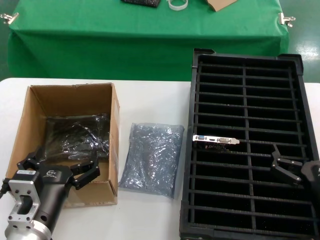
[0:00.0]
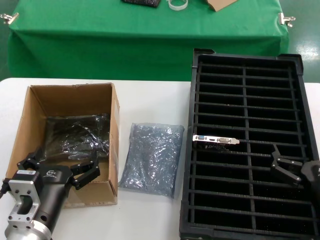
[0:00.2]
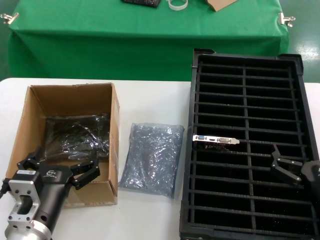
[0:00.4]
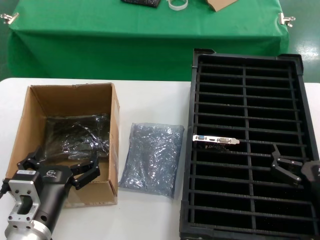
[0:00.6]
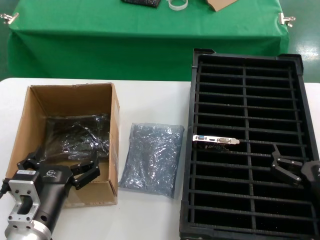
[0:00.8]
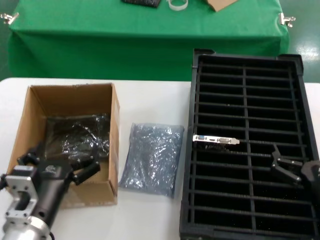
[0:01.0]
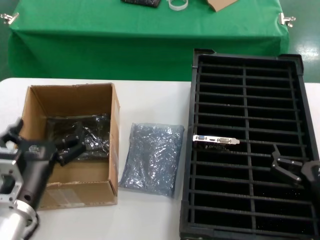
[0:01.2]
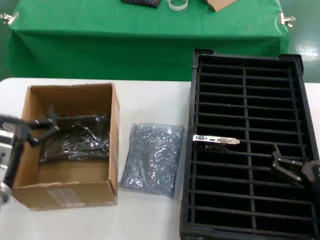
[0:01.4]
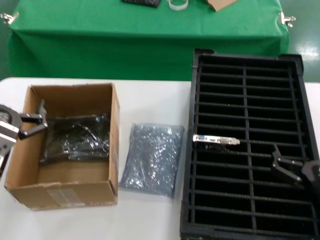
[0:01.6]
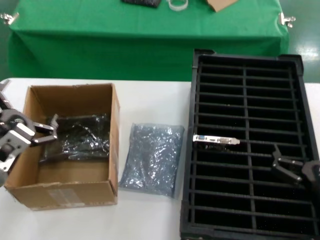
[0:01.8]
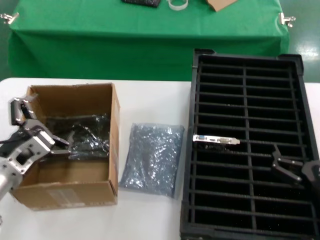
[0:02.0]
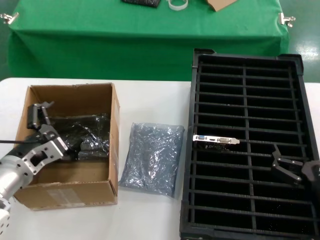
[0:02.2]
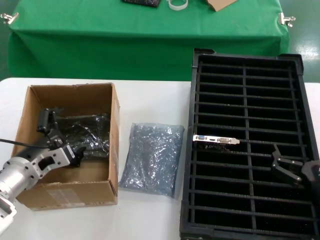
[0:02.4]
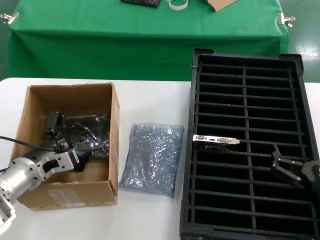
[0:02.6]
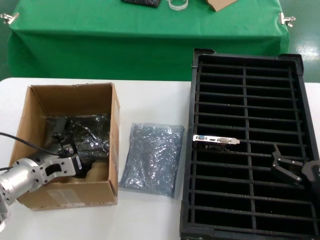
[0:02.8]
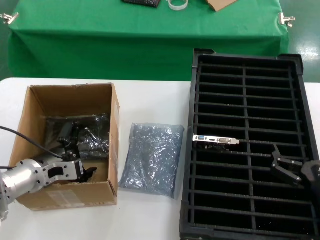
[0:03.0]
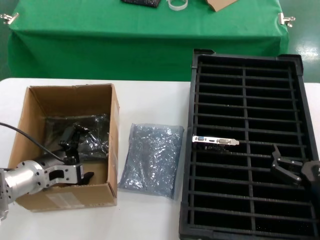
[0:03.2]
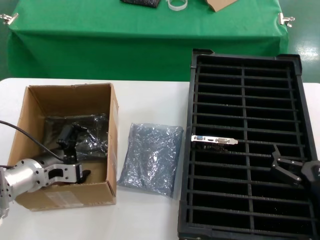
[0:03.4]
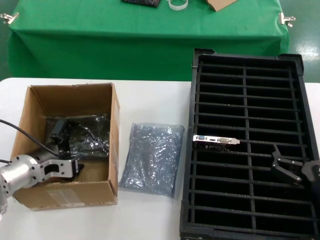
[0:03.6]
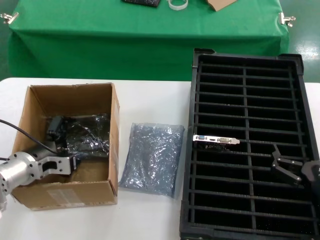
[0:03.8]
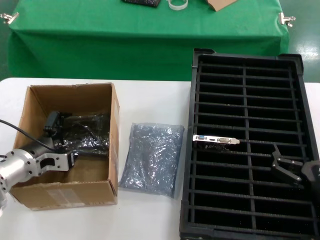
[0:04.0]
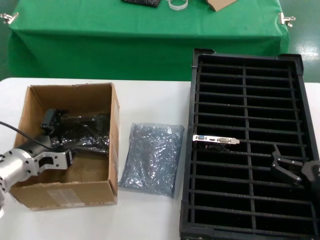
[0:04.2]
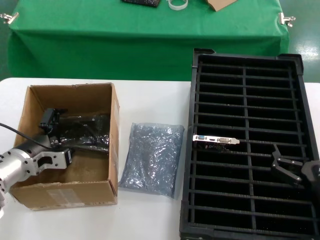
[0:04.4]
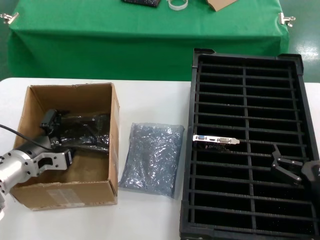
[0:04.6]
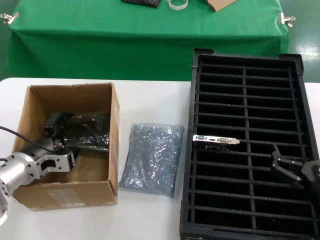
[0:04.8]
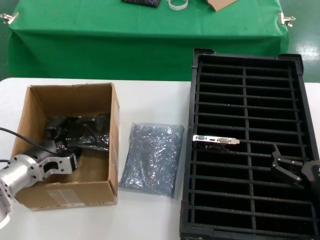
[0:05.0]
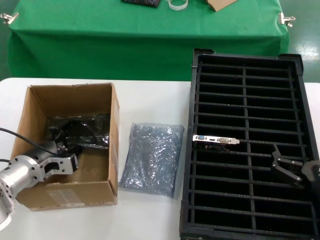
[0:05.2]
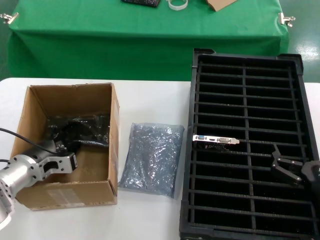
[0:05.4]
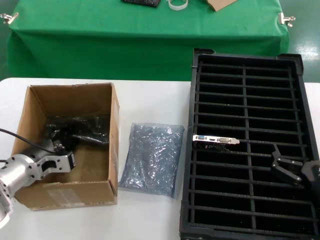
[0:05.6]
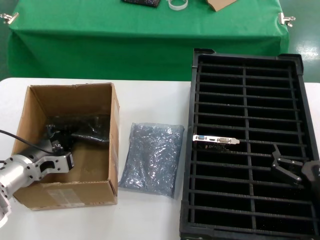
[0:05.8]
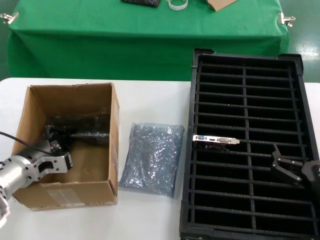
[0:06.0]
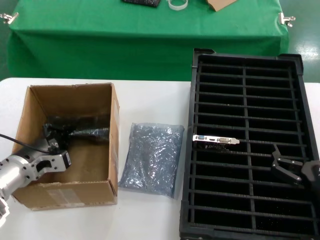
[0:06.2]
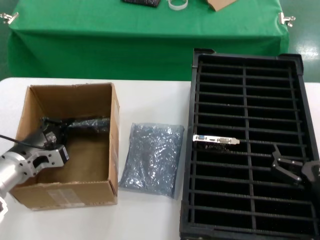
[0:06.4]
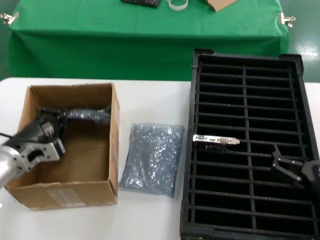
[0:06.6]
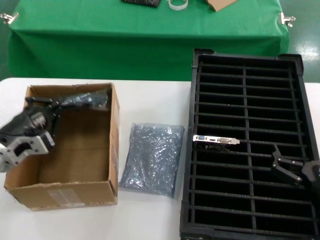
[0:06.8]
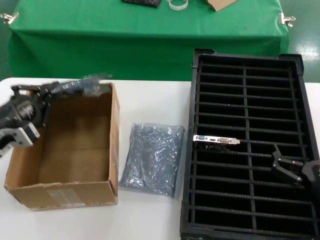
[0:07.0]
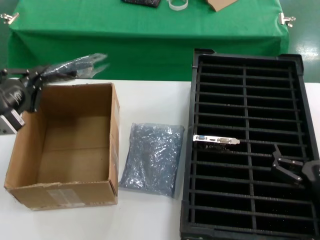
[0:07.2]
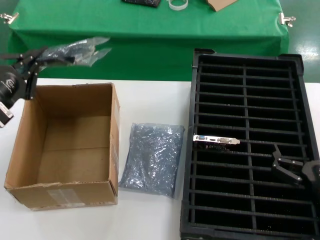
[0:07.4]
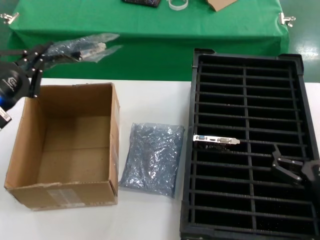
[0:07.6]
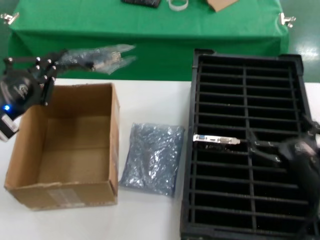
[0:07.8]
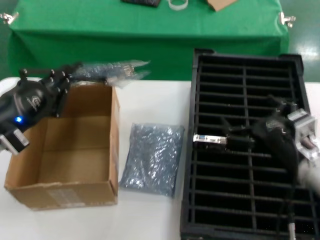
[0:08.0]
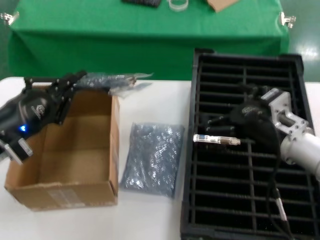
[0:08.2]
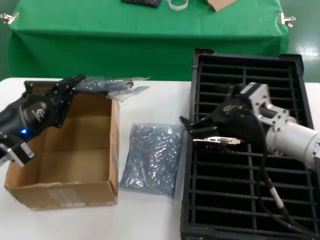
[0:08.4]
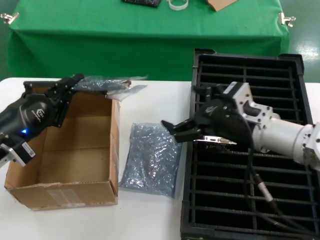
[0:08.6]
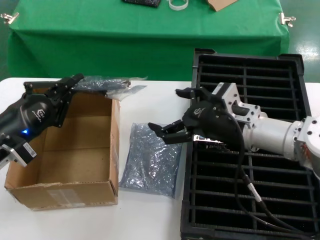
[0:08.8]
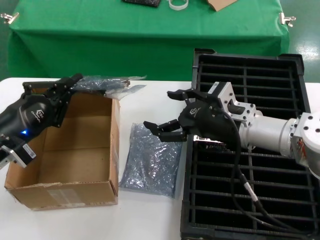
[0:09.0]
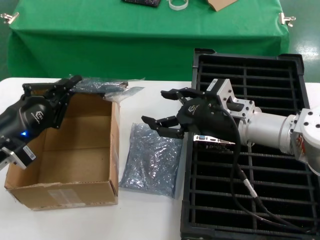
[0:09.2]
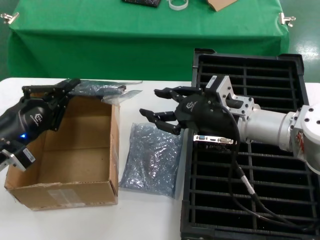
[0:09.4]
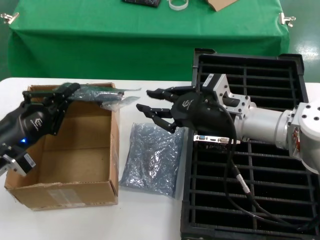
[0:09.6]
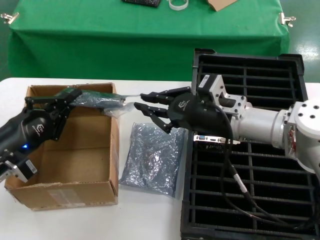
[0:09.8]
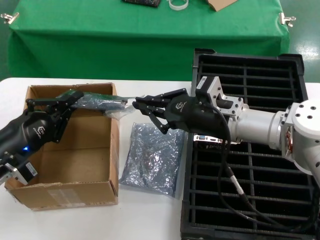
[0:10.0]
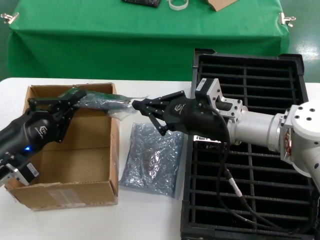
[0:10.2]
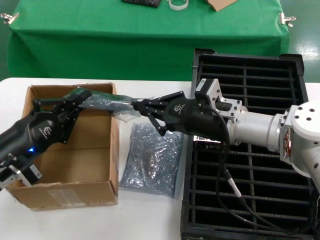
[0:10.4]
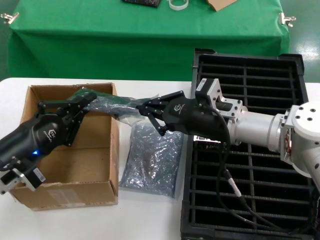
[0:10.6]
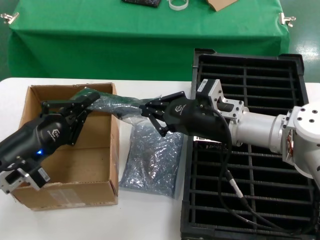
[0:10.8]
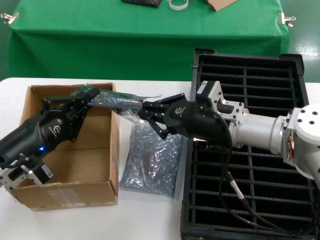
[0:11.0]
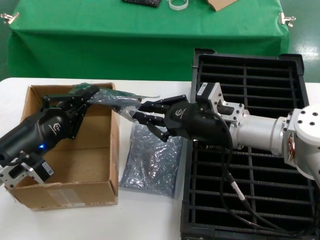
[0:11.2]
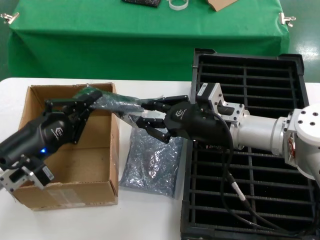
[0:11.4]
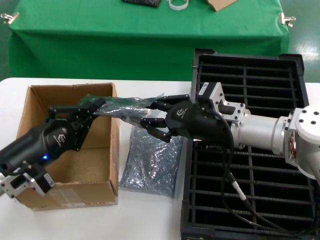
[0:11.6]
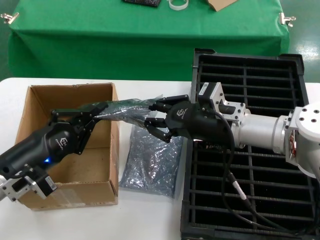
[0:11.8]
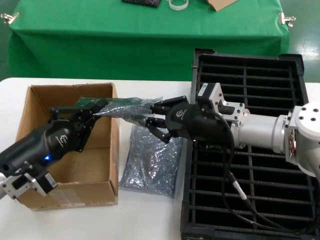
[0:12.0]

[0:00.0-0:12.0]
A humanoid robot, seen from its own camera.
Task of the whole recording: take out graphics card from box remove packaging put into black container.
Step, 0:00.0 to 0:05.8: Grasp the bag.
Step, 0:06.0 to 0:08.2: Lift the bag.
0:00.0 to 0:01.6: The left hand heads to the left and upward, covering approximately 10 cm.
0:01.6 to 0:03.0: The left hand goes about 15 cm forward and downward.
0:03.0 to 0:06.0: The hands make only small movements.
0:06.0 to 0:07.6: The left hand goes about 15 cm upward and backward.
0:07.6 to 0:09.0: The left hand moves downward, some 5 cm; the right hand moves forward, upward and to the left, some 25 cm.
0:09.0 to 0:12.0: There are only small adjustments of the hands.

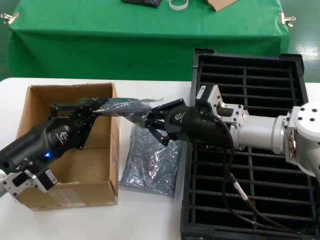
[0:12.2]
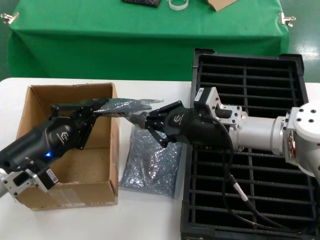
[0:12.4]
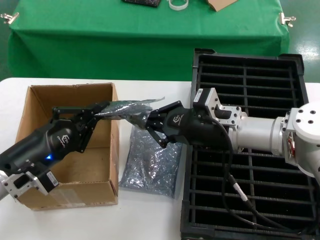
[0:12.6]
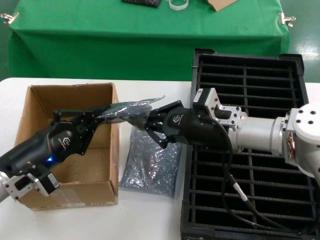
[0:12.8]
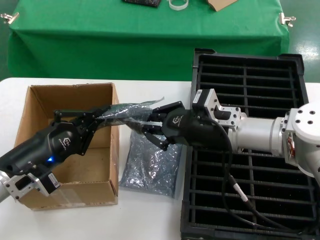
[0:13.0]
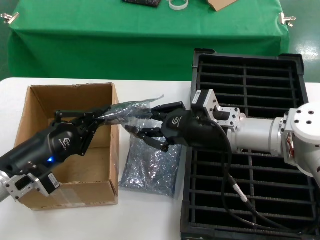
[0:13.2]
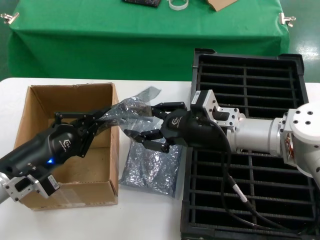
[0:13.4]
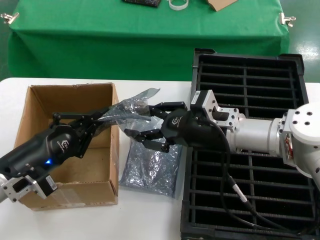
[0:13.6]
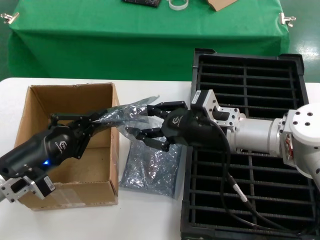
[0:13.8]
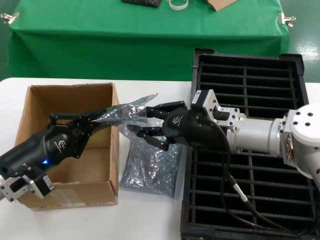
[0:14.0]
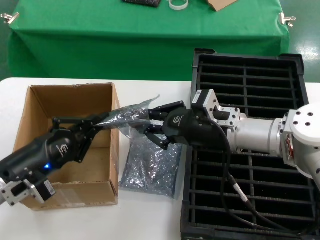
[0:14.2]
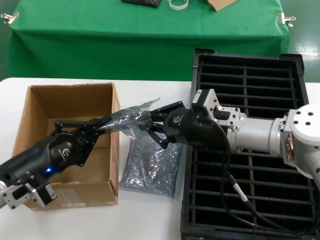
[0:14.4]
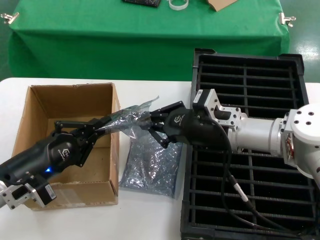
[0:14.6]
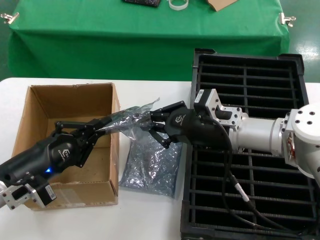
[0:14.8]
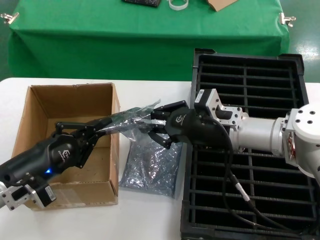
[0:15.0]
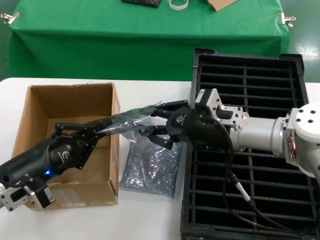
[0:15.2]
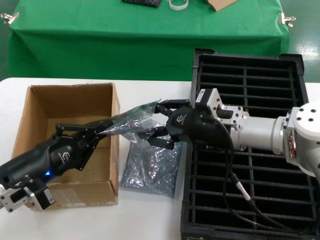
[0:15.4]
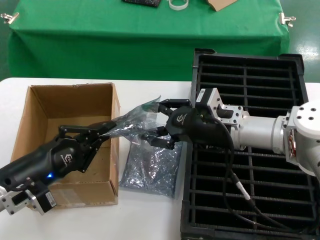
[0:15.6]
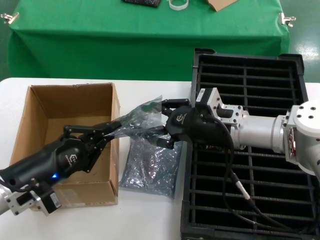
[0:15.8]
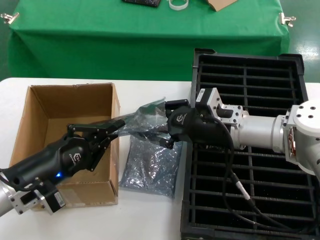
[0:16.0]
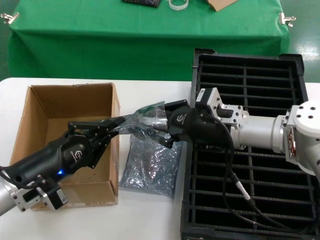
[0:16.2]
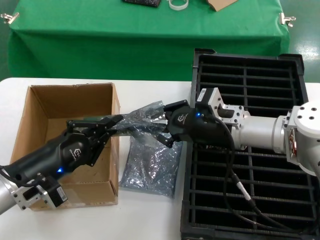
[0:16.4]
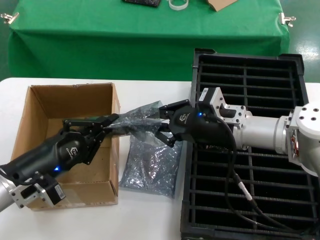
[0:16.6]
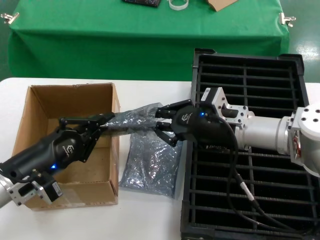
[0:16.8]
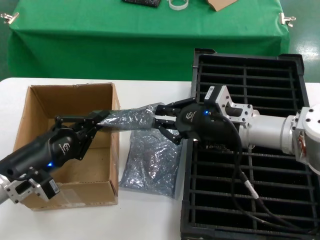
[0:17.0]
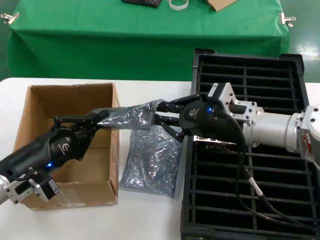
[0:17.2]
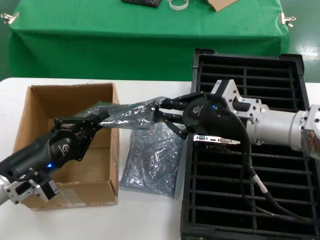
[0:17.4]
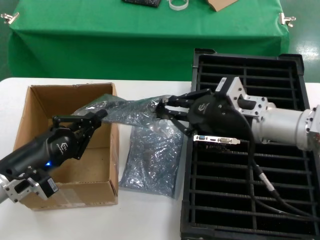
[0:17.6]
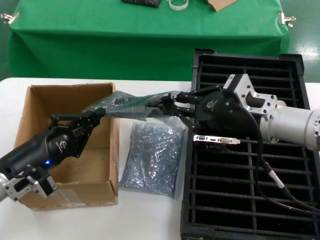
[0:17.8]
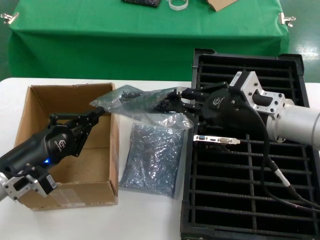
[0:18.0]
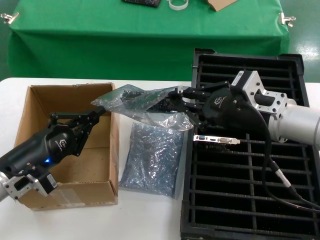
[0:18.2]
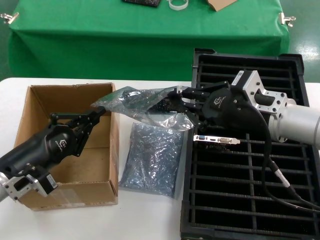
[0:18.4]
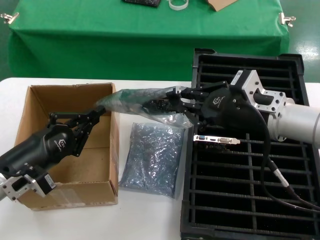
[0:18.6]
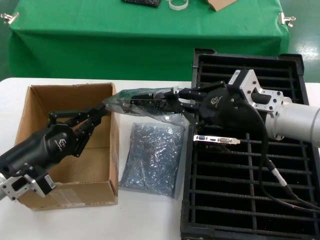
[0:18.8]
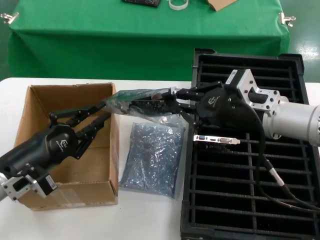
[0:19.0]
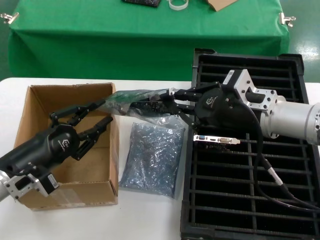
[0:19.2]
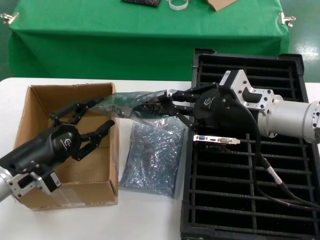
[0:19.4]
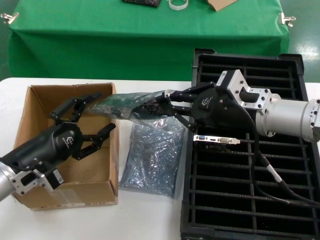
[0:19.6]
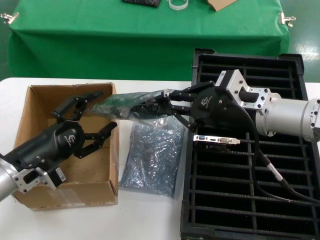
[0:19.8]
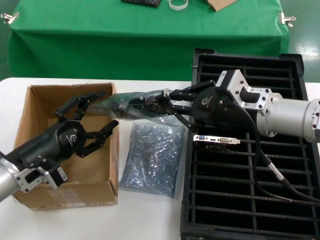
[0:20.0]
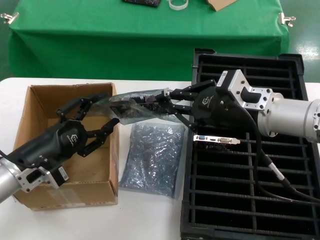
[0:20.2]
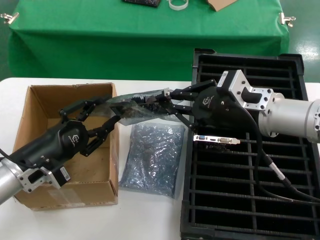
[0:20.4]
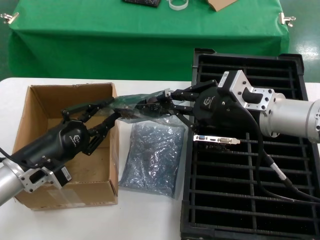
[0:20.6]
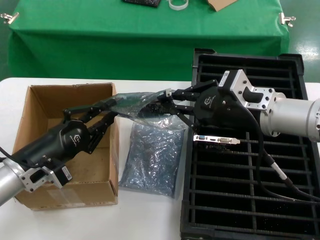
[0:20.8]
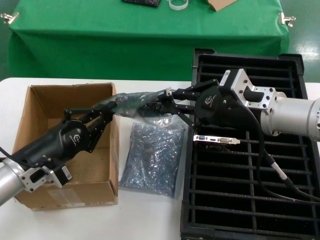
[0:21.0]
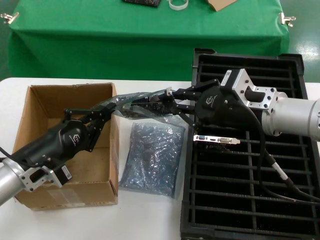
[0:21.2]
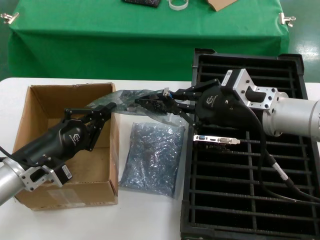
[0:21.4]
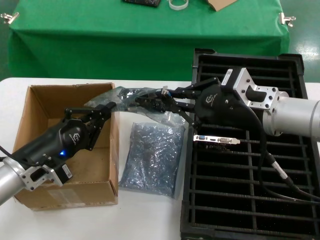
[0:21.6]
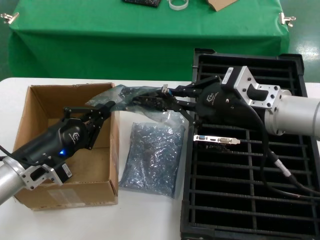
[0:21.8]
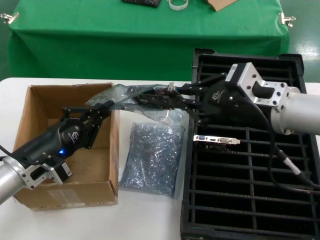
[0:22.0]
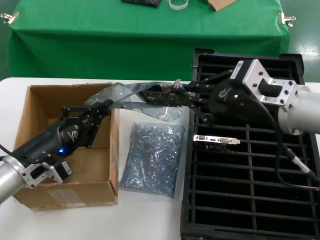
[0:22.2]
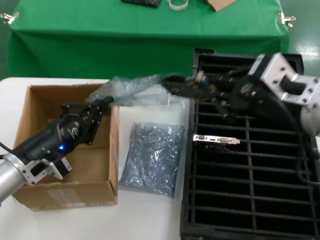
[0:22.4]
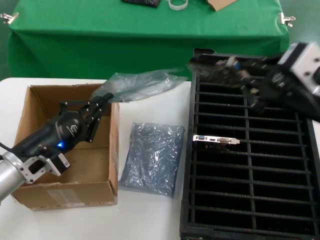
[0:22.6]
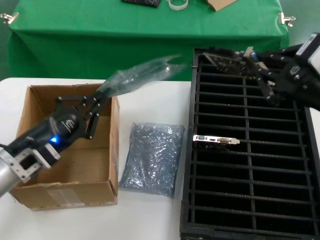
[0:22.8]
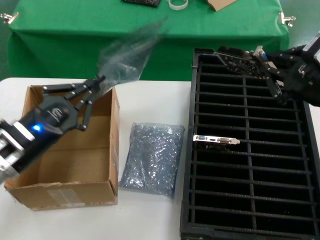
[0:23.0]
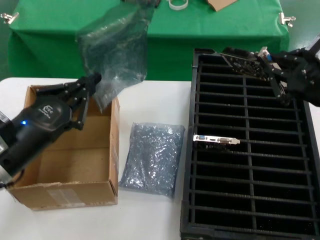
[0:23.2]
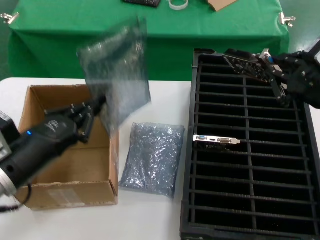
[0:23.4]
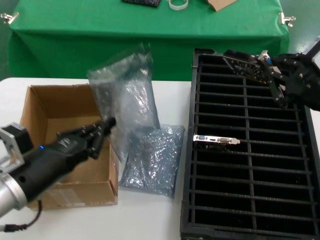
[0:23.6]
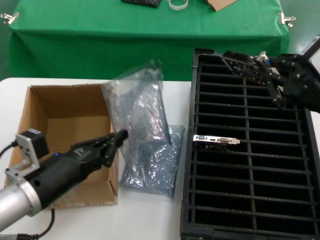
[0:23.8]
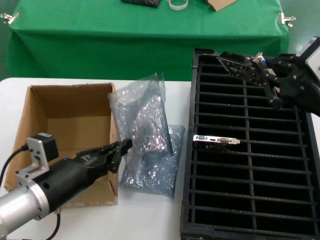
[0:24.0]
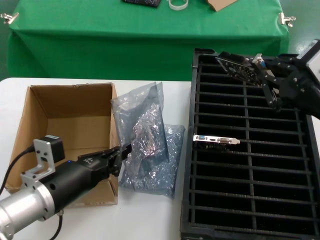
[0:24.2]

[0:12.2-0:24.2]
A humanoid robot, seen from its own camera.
Task of the whole recording: take out graphics card from box remove packaging put into black container.
Step, 0:12.2 to 0:22.6: Take out the hard disk of the bag.
0:12.2 to 0:13.8: The two hands keep their place.
0:13.8 to 0:15.2: Both hands stay about where they are.
0:15.2 to 0:16.6: The hands make only small movements.
0:16.6 to 0:18.2: The right hand goes about 5 cm backward and upward.
0:18.2 to 0:19.8: The hands make only small movements.
0:19.8 to 0:21.2: The two hands keep their place.
0:21.2 to 0:22.6: The right hand is displaced backward and upward by approximately 15 cm.
0:22.6 to 0:24.2: The left hand is displaced backward and to the right by approximately 10 cm.
